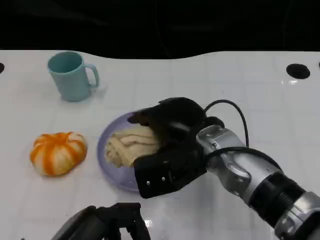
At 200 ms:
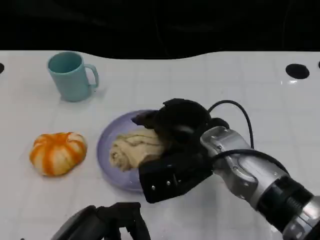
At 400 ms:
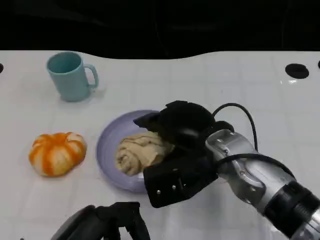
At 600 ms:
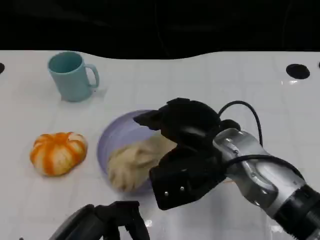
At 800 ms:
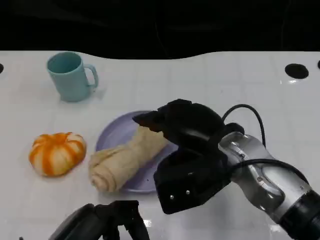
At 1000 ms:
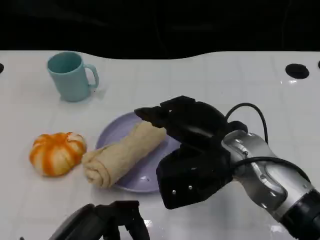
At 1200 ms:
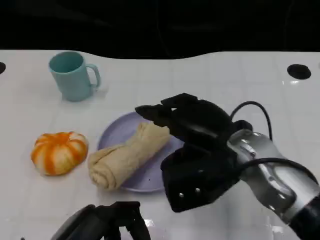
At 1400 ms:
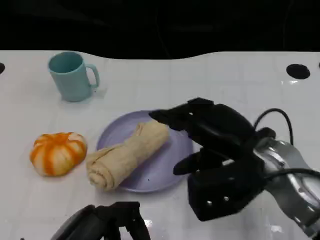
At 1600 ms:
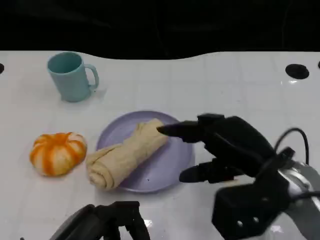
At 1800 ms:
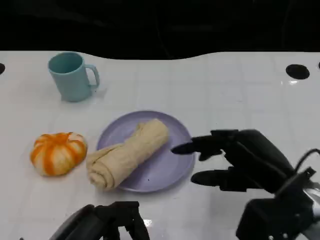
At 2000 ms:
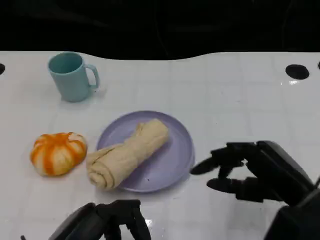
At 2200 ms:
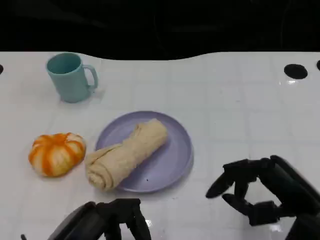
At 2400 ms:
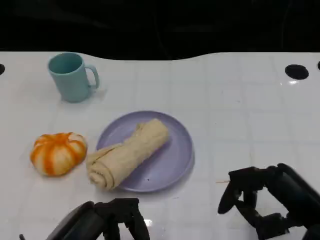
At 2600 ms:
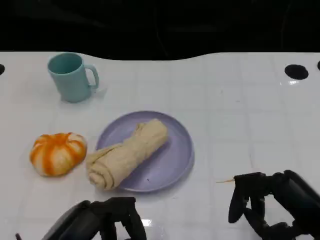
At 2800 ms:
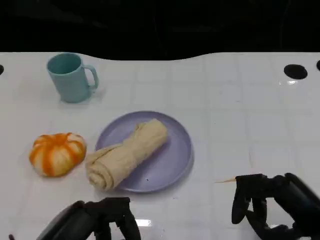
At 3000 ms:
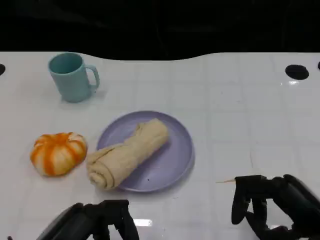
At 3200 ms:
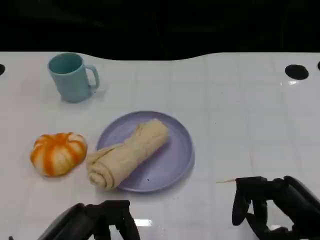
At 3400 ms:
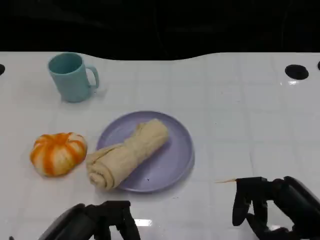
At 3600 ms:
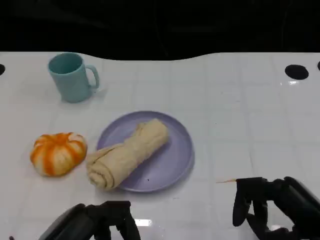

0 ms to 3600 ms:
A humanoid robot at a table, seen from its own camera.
Task of the whole recording: Grasp the towel on the left side of the plate with the left hand and place it into the plate.
0 ms to 1800 ms: The right hand goes approximately 15 cm to the right and backward.
1800 ms to 3600 ms: The right hand heads backward, covering approximately 5 cm.

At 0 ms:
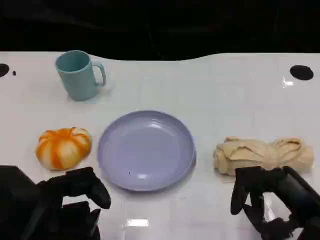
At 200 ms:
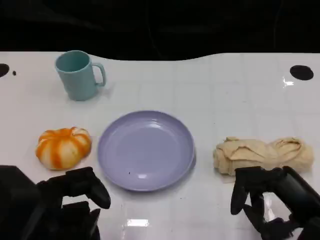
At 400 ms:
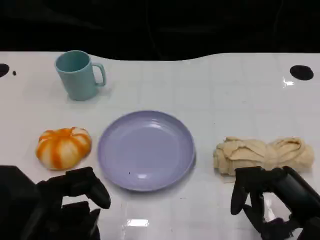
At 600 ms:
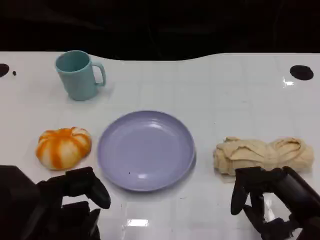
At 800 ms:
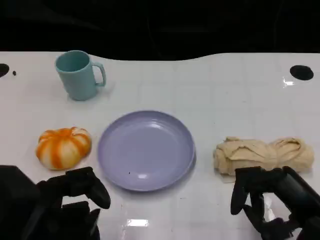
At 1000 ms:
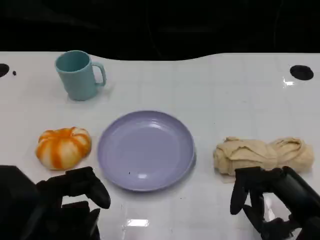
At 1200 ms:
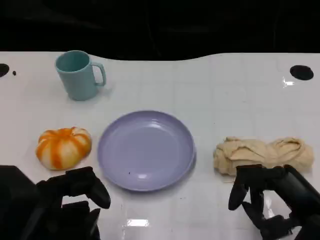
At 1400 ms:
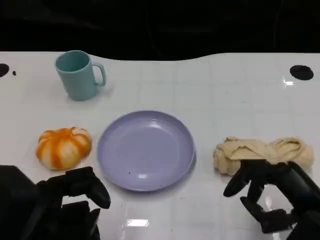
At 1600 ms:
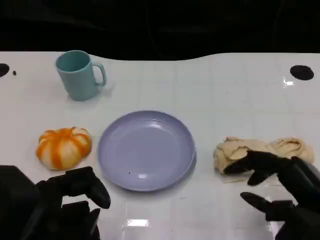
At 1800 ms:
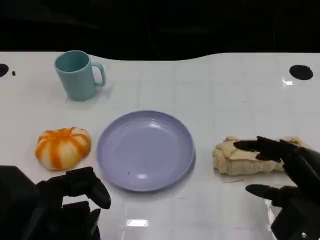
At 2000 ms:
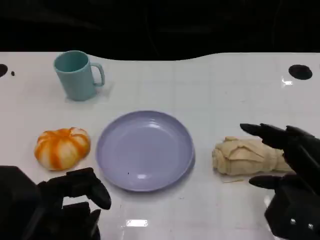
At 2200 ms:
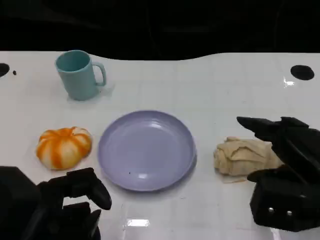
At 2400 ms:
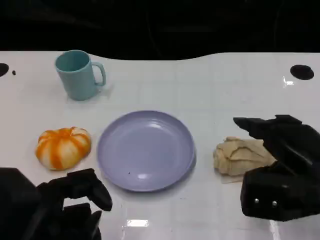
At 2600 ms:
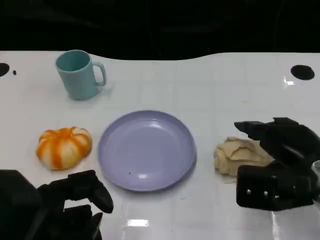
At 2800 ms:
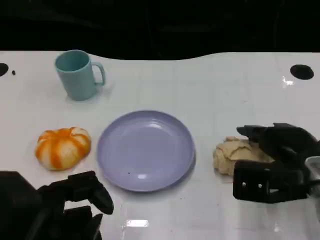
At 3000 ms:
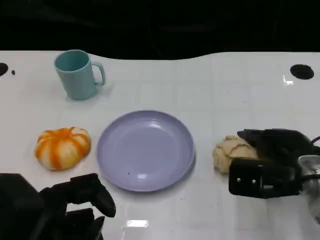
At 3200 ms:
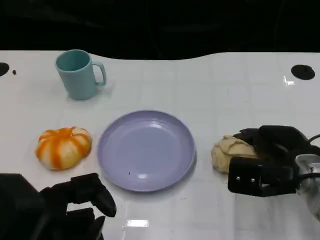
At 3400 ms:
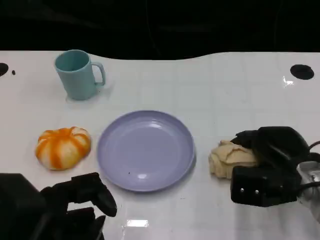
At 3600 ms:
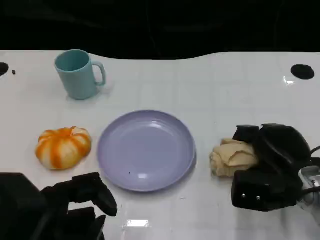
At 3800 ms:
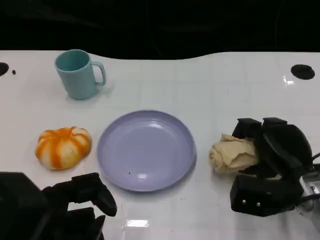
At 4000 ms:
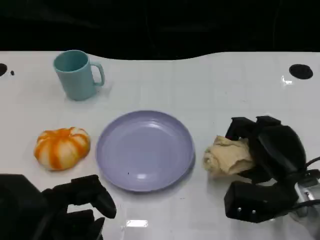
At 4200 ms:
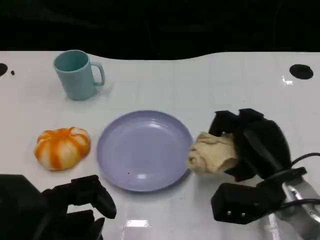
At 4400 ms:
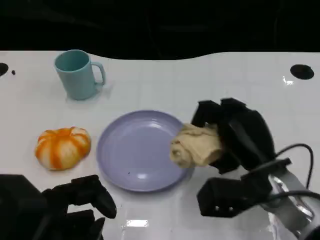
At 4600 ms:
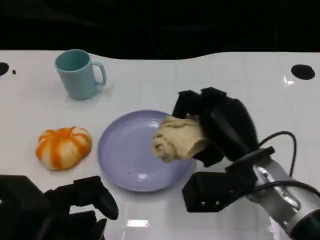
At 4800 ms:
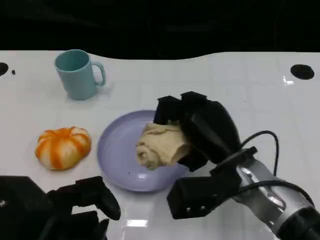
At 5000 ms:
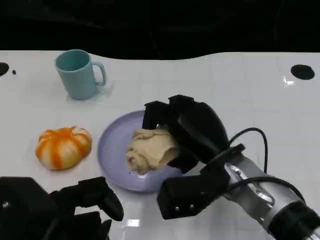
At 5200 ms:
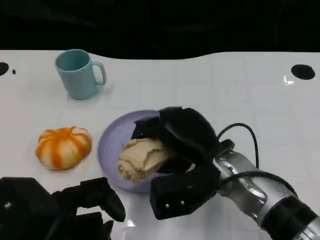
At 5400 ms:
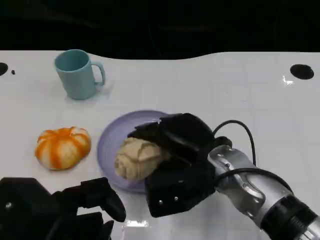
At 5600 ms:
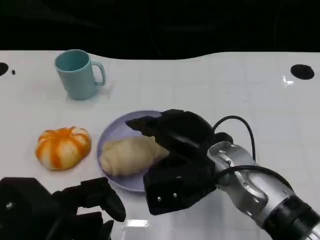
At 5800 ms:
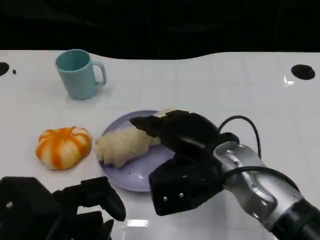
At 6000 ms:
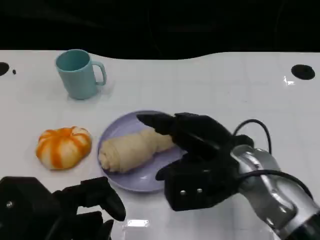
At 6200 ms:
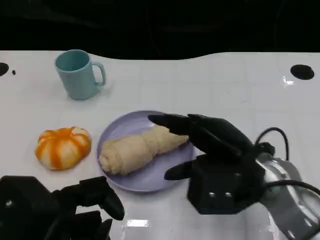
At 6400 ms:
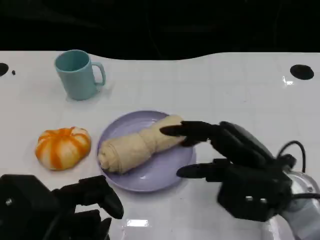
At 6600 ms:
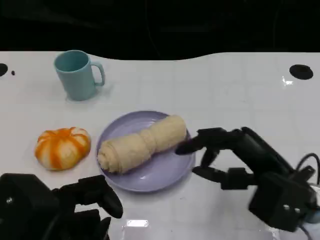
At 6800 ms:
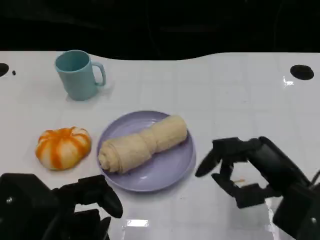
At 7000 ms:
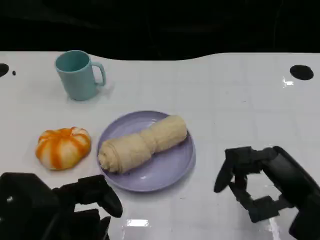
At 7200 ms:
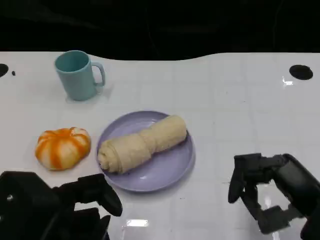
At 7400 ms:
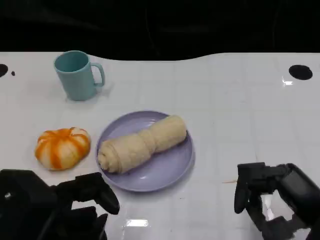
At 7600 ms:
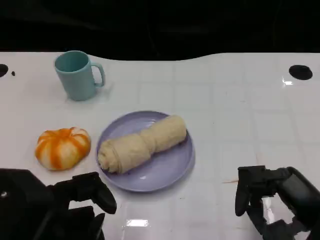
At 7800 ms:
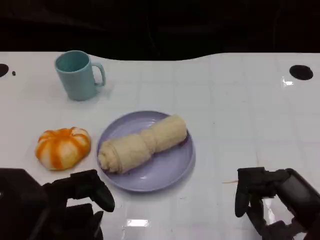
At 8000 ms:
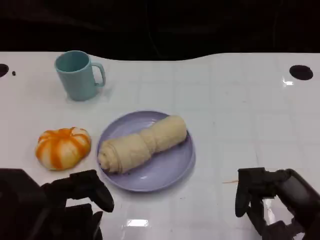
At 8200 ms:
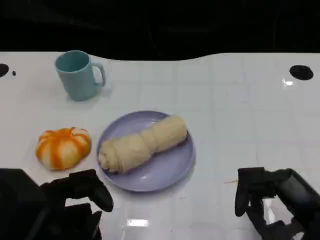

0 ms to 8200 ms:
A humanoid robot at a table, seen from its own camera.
Task of the whole recording: Grasp the towel on the left side of the plate with the left hand and place it into the plate.
0 ms to 1600 ms: There are only small adjustments of the hands.
1600 ms to 3200 ms: The right hand moves forward, roughly 10 cm.
3200 ms to 5000 ms: The right hand shifts roughly 10 cm to the left.
5000 ms to 6600 ms: The right hand moves to the right, about 10 cm.
6600 ms to 8200 ms: The right hand is displaced backward by roughly 5 cm.

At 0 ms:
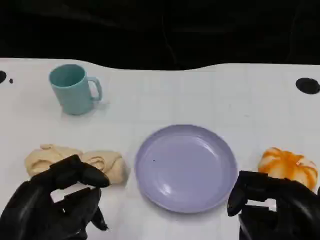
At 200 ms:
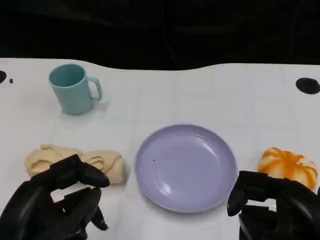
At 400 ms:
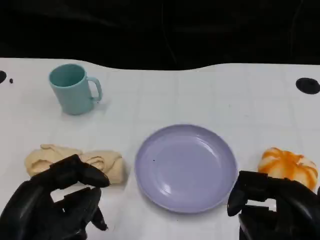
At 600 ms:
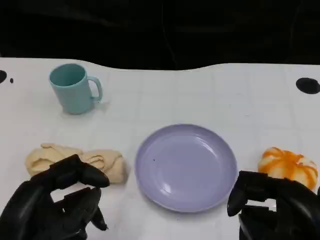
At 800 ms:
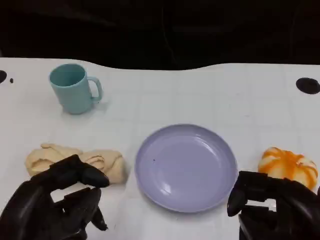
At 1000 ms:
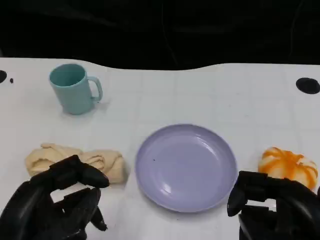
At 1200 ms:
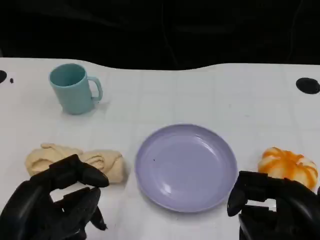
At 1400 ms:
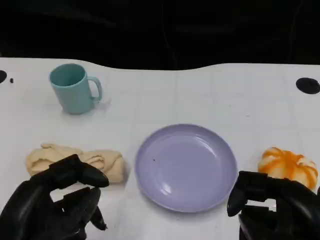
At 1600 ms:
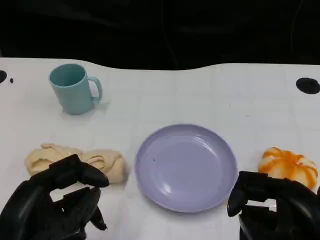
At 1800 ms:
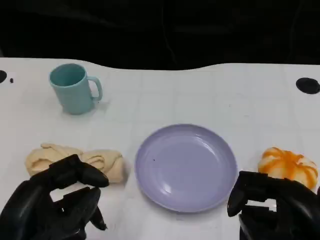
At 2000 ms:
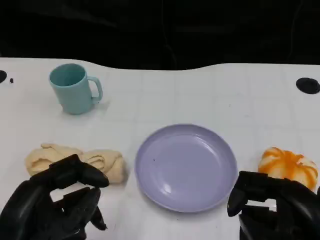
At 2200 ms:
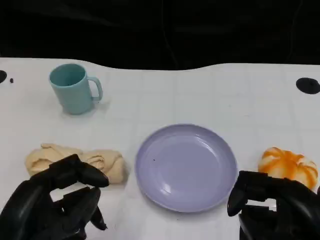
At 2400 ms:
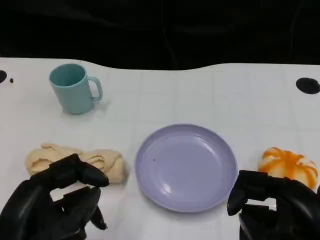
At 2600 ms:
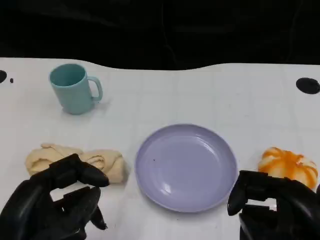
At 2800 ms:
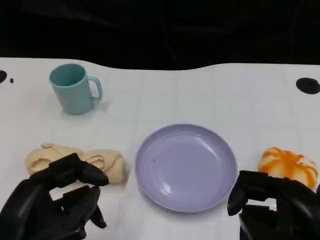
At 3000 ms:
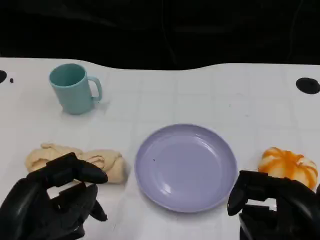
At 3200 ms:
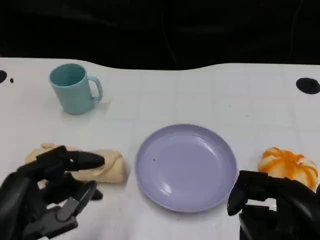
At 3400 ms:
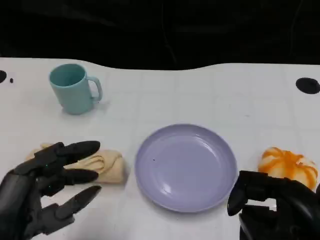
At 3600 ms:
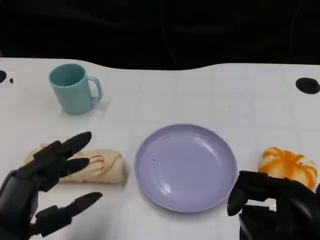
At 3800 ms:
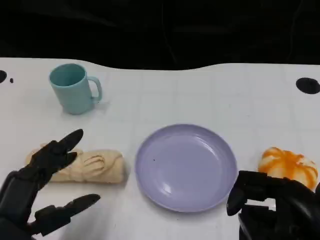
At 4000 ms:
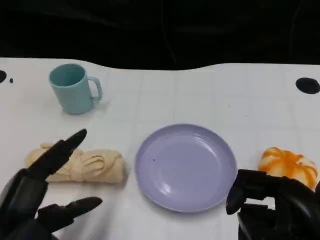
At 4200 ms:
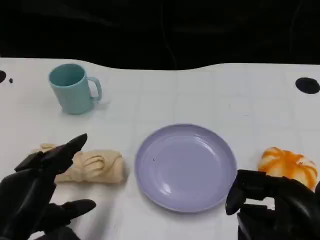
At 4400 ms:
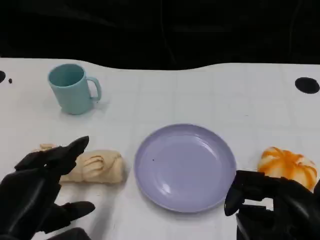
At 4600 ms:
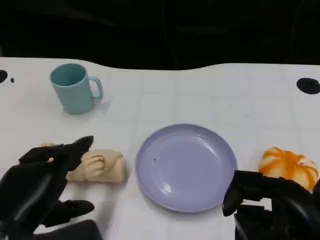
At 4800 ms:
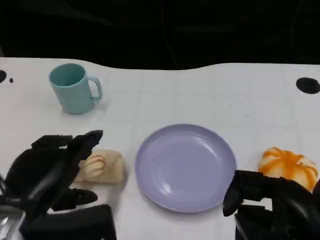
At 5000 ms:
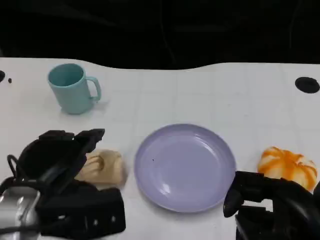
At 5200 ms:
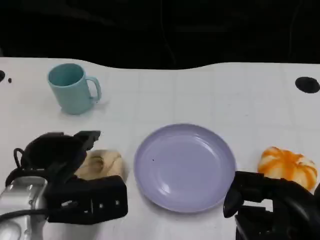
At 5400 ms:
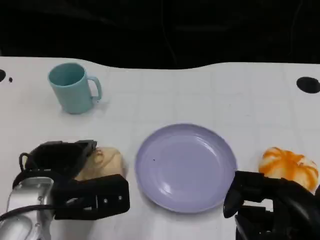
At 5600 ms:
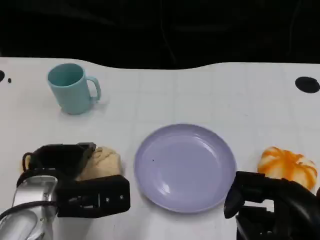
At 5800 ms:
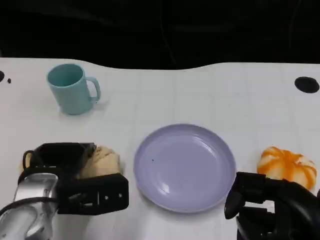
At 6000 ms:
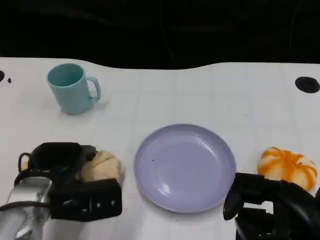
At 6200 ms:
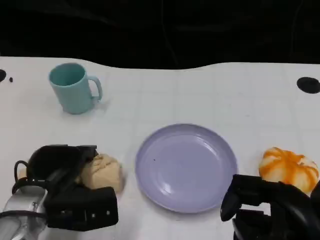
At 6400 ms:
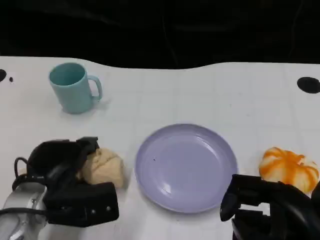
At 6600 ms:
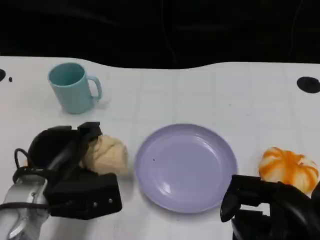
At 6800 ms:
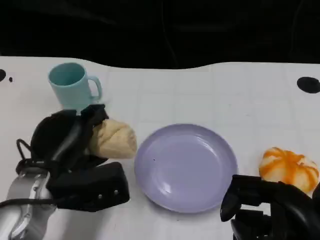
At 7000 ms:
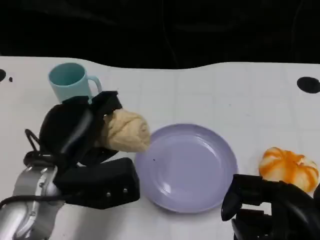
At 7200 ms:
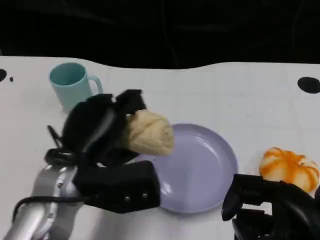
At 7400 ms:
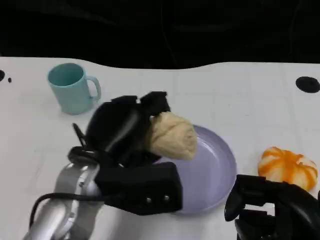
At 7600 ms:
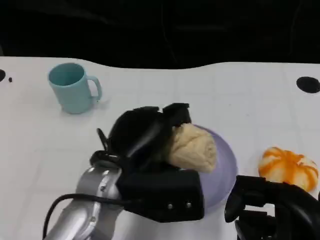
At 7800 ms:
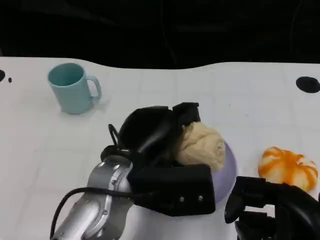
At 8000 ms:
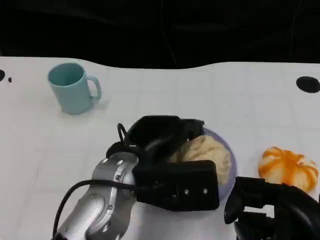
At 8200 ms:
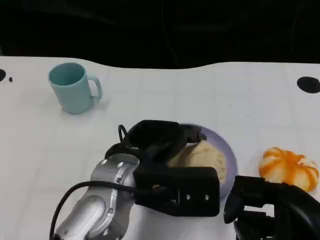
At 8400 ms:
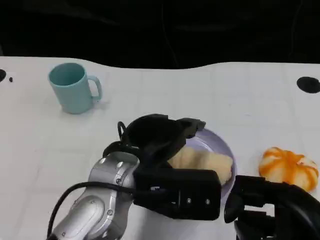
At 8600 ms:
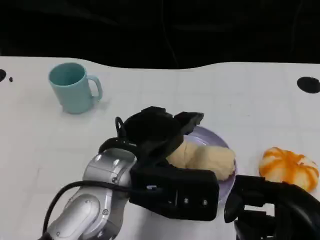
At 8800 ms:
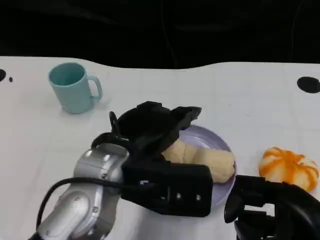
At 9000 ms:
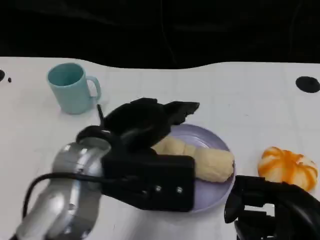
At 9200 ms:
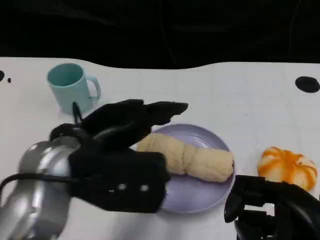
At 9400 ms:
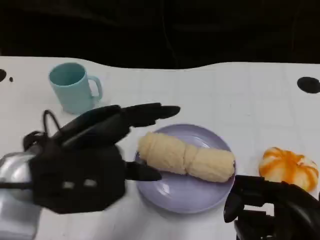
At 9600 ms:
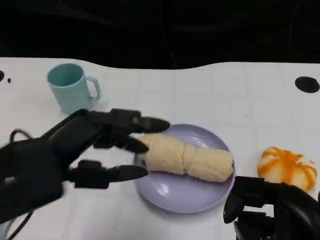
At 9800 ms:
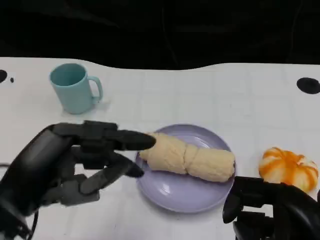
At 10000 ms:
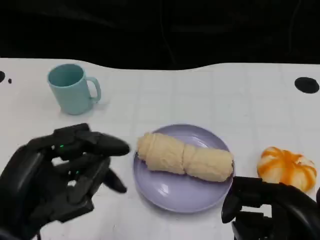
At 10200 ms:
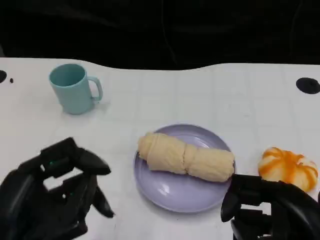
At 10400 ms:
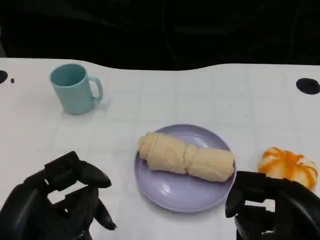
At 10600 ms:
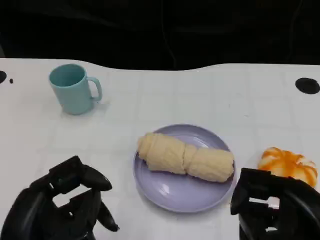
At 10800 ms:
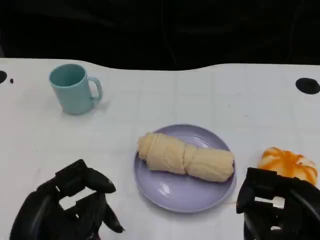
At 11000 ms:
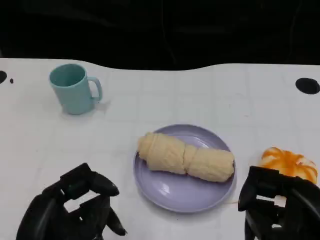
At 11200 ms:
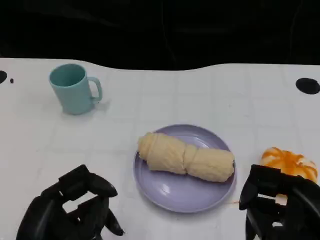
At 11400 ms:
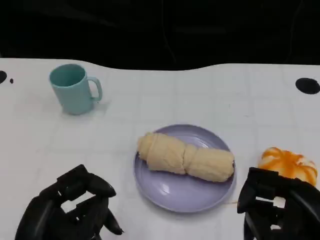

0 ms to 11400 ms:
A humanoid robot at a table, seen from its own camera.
Task of the whole recording: Grasp the towel on the left side of the plate with the left hand and place it into the plate.
0 ms to 2800 ms: Both hands stay about where they are.
4200 ms to 5600 ms: The left hand is displaced forward by approximately 10 cm.
5600 ms to 7200 ms: The left hand heads upward, covering approximately 5 cm.
7200 ms to 8600 ms: The left hand is displaced to the right by roughly 5 cm.
8600 ms to 10000 ms: The left hand travels to the left and backward by some 15 cm.
10000 ms to 11400 ms: The left hand moves downward, some 5 cm.
